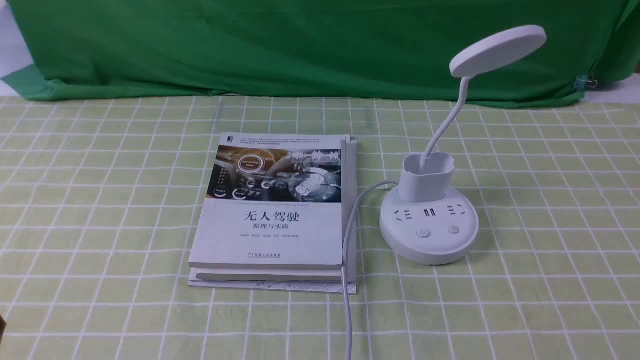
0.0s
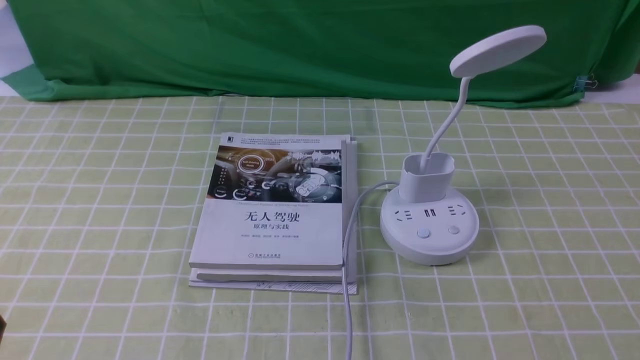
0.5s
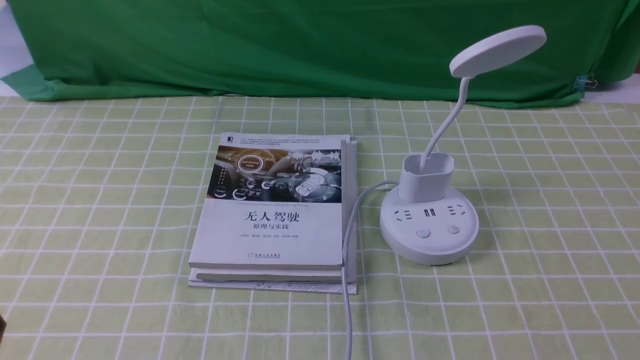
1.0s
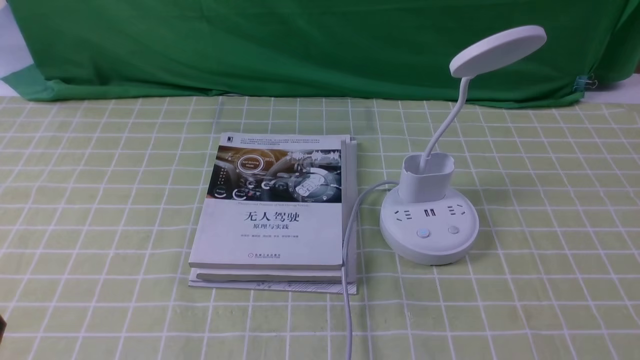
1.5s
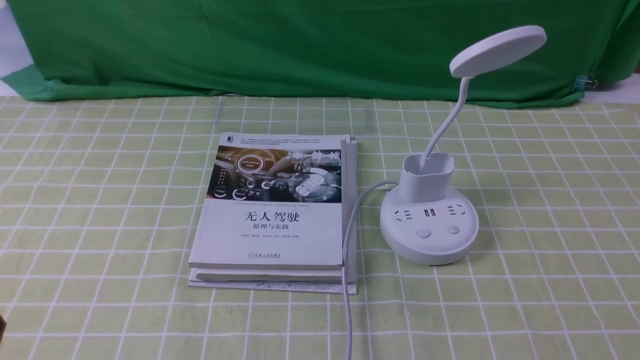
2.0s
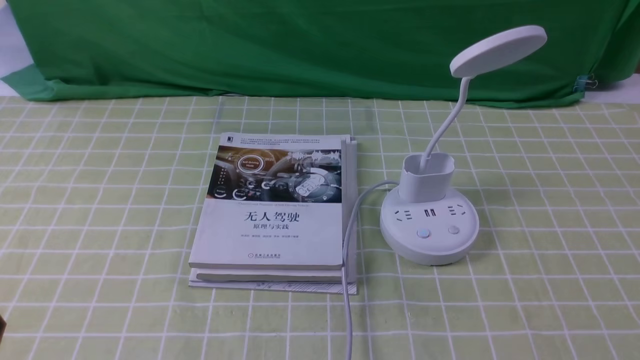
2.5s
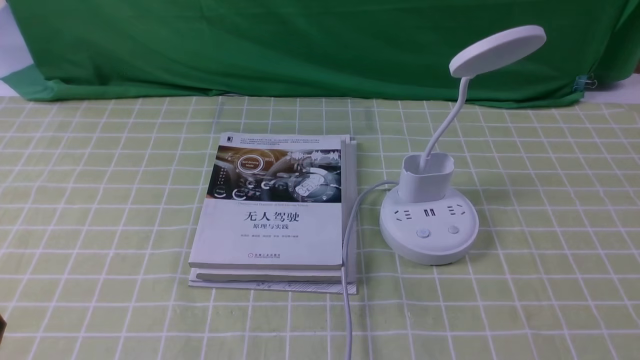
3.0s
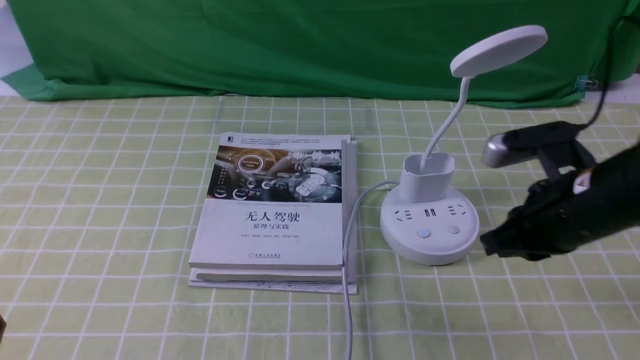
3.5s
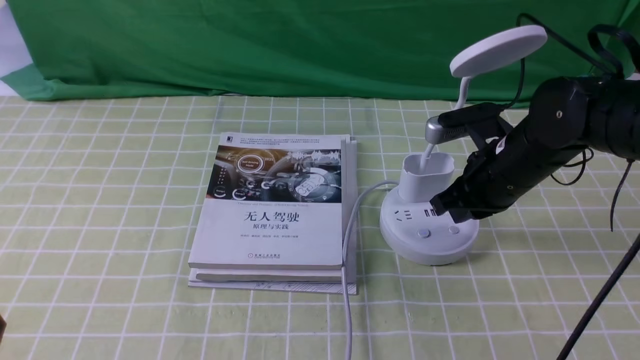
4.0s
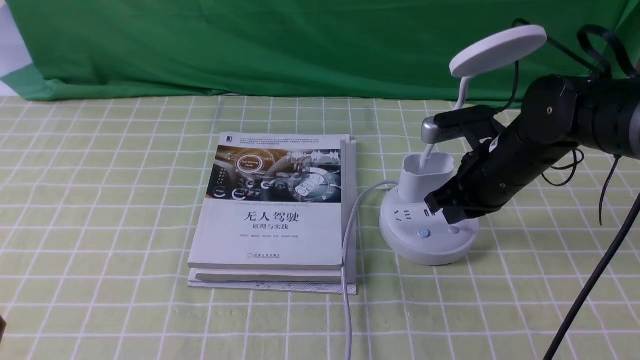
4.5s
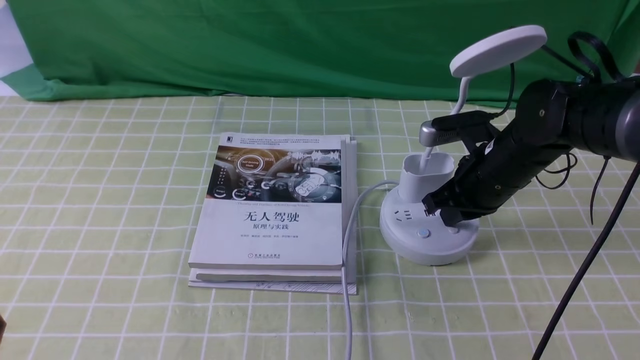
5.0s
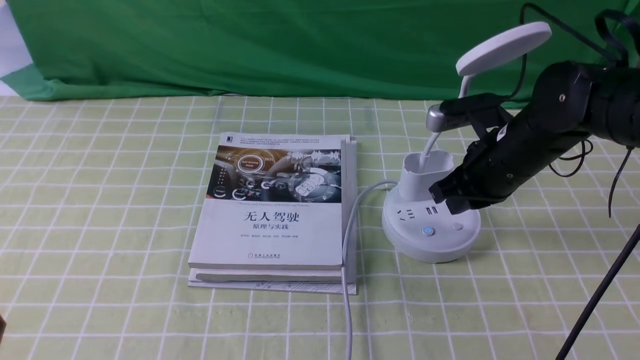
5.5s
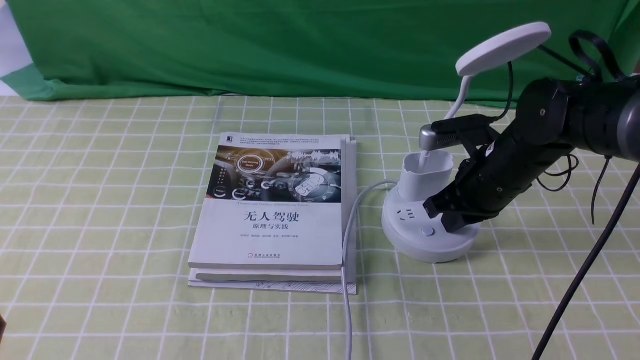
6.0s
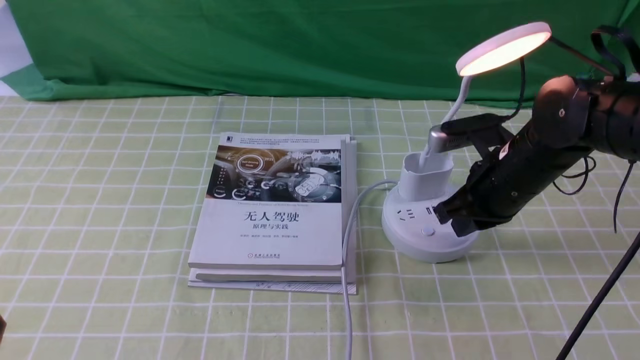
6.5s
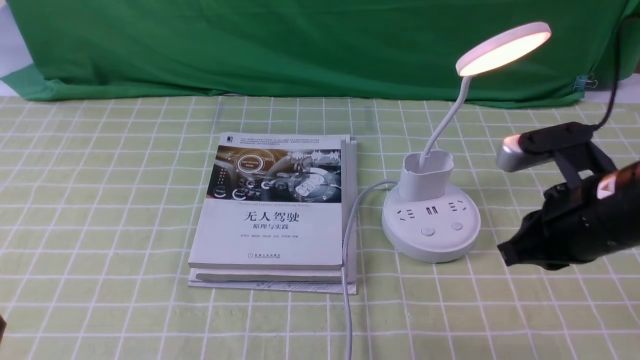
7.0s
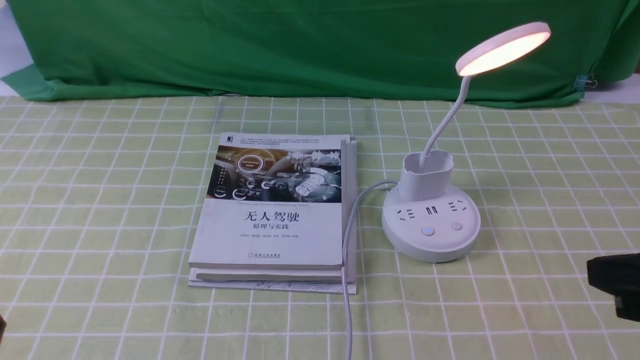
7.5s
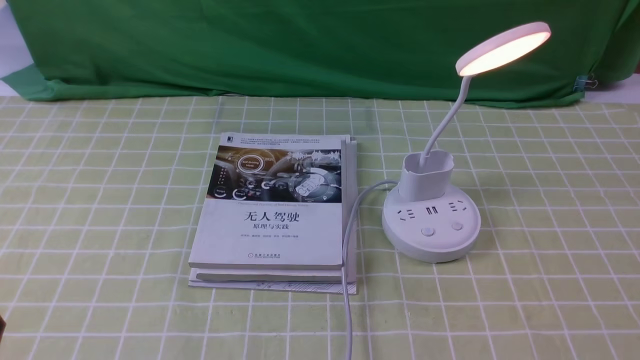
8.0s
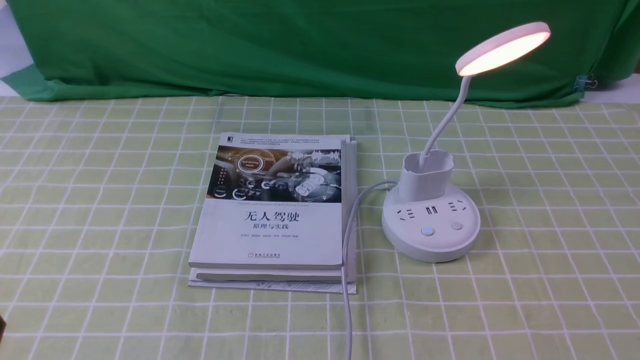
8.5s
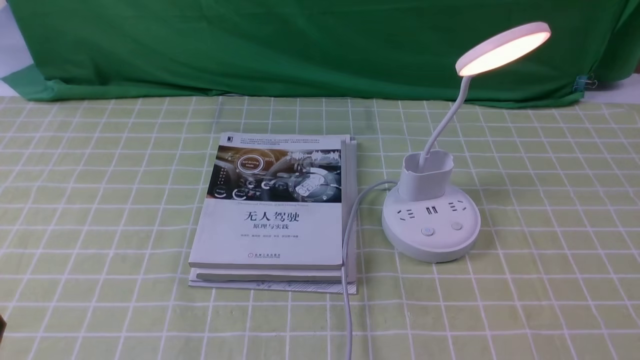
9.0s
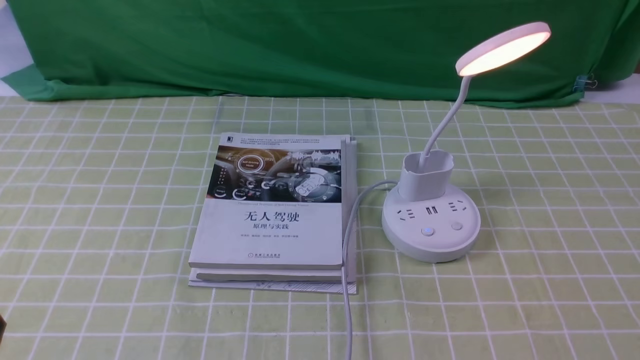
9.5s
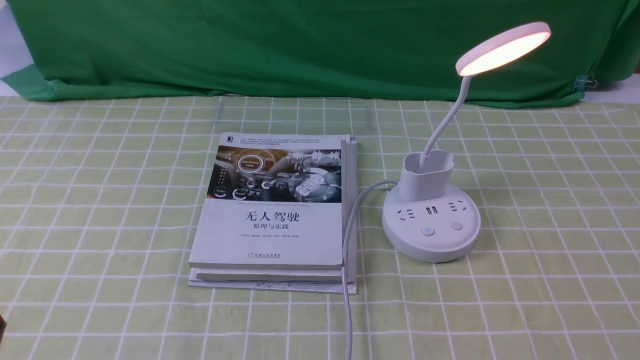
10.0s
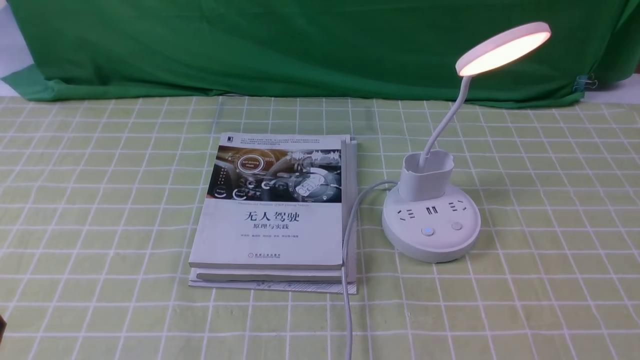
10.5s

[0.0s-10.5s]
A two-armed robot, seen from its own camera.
Step, 0.0s to 6.0s: use the right arm to press the button switch on the lamp holder.
2.0s to 4.0s: The right gripper heads forward and to the left, covering approximately 35 cm, and closes.
4.0s to 6.5s: The grippers move only a little.
6.5s to 8.5s: The right gripper is displaced backward and to the right by roughly 30 cm.

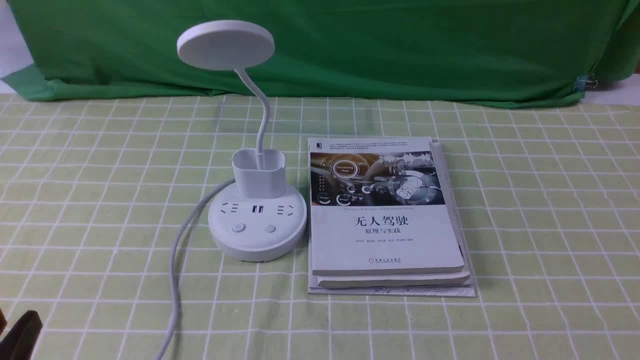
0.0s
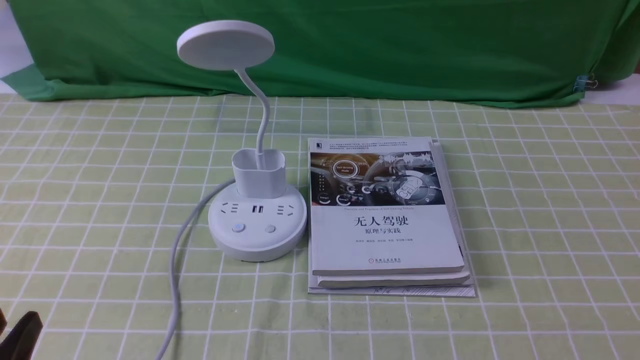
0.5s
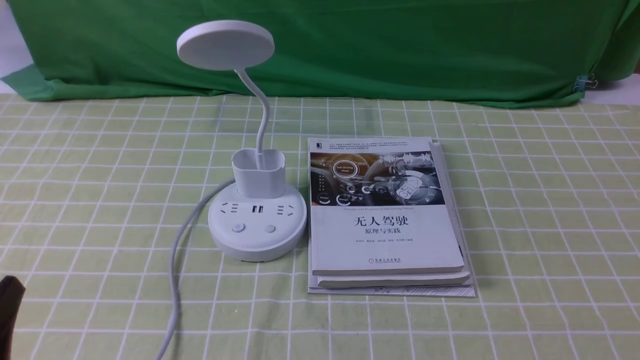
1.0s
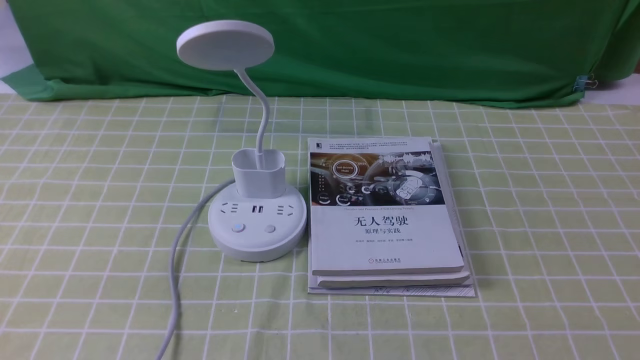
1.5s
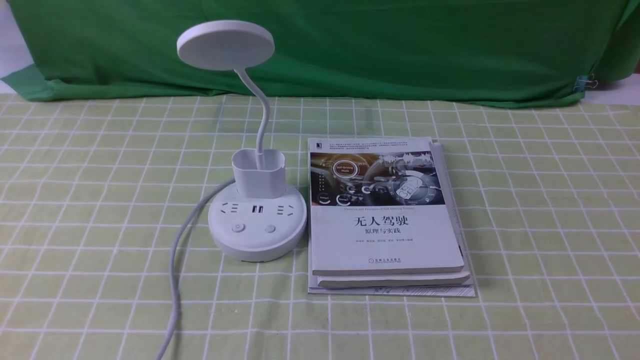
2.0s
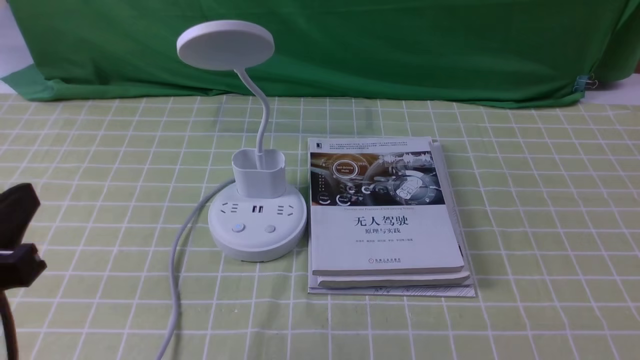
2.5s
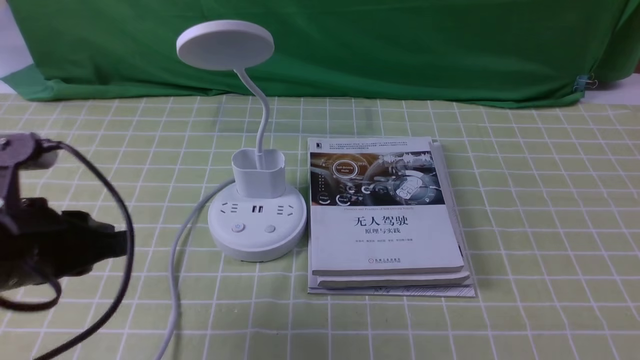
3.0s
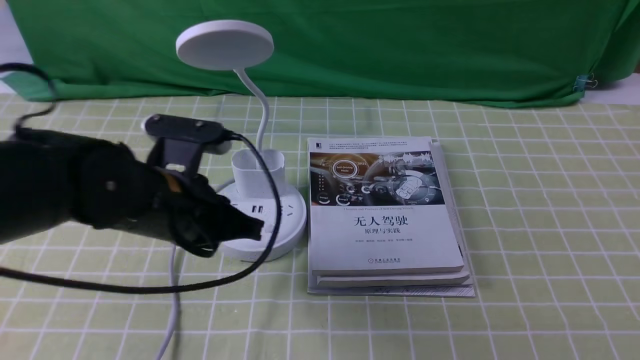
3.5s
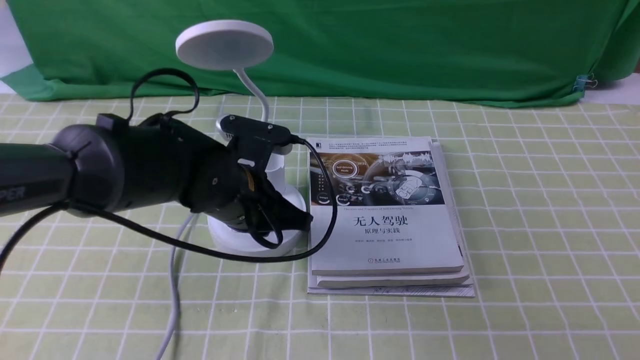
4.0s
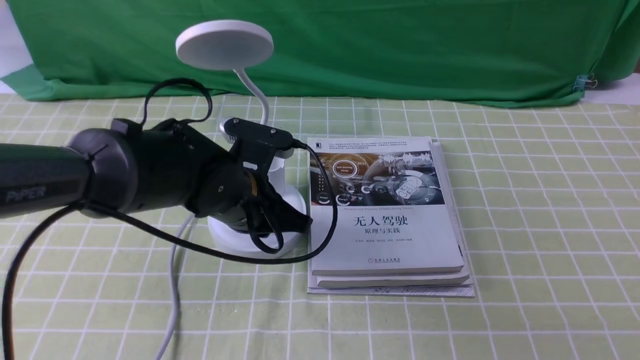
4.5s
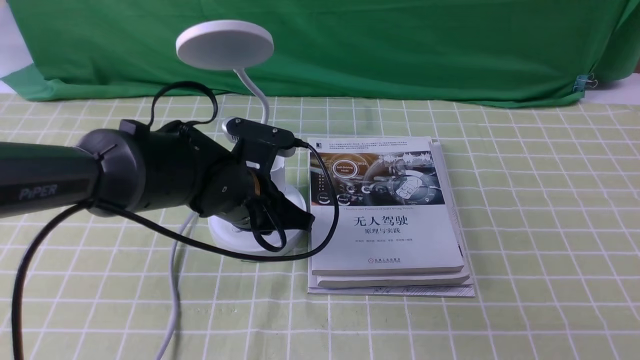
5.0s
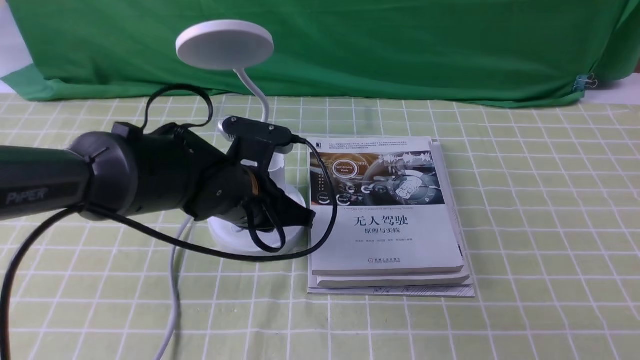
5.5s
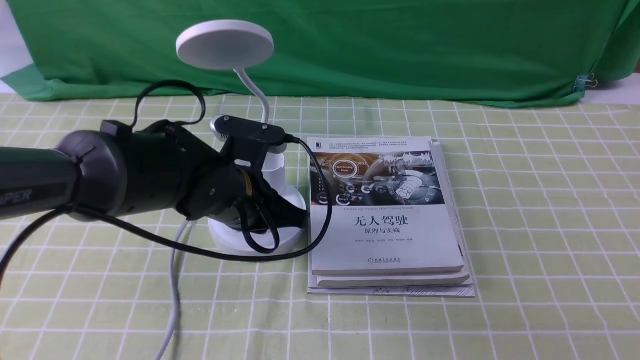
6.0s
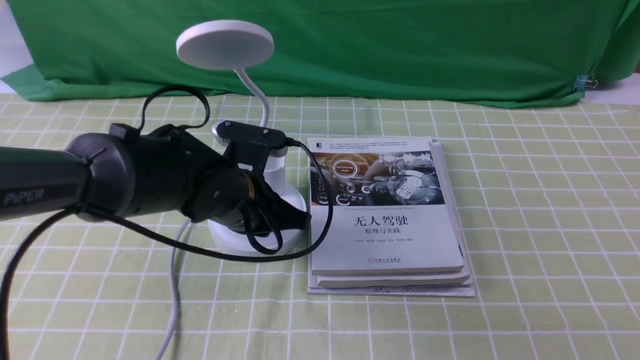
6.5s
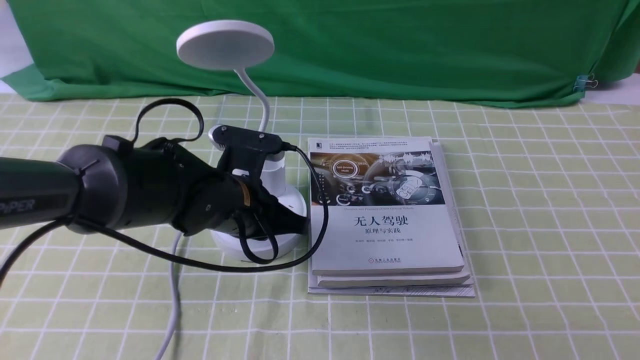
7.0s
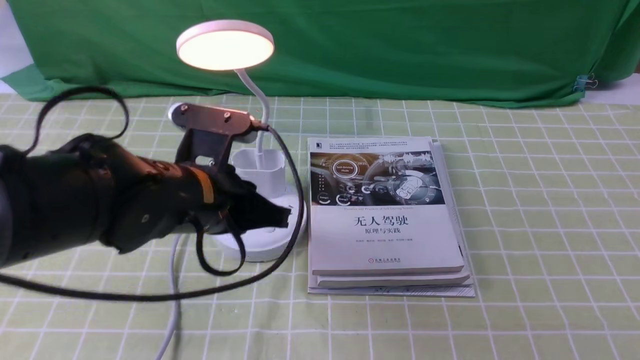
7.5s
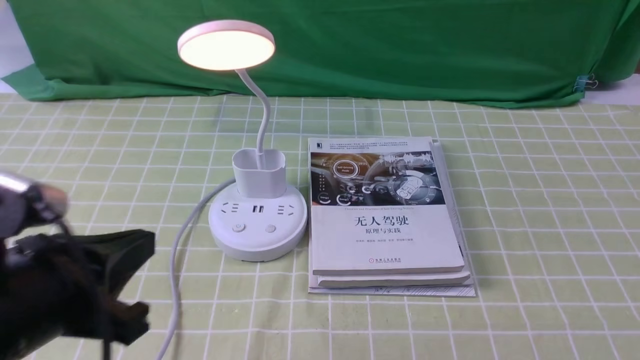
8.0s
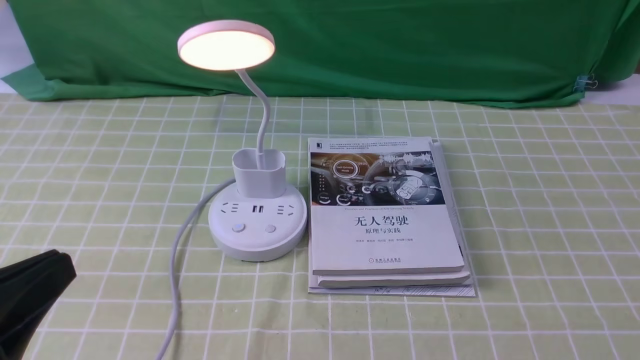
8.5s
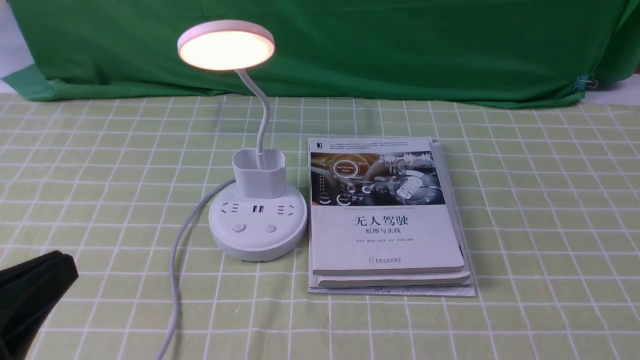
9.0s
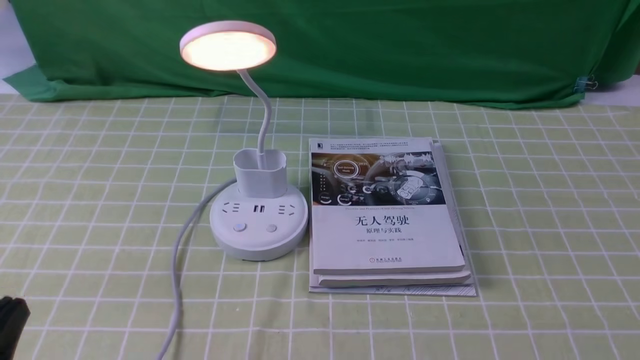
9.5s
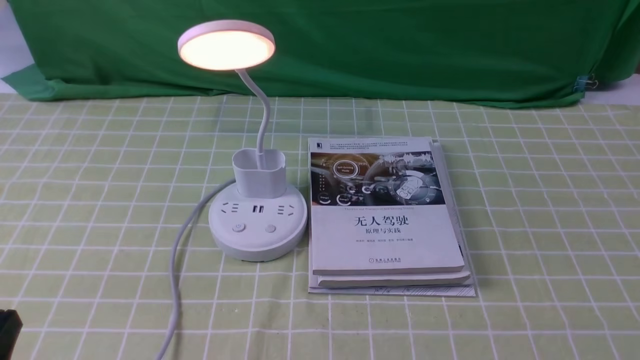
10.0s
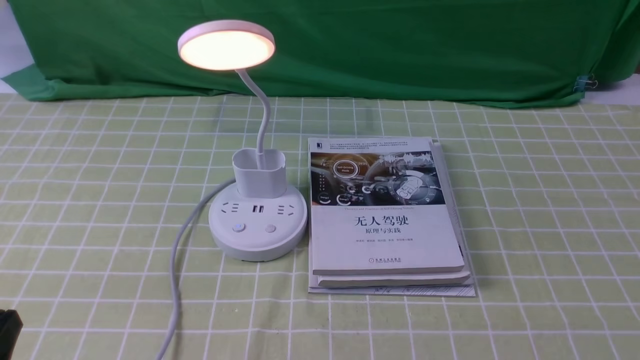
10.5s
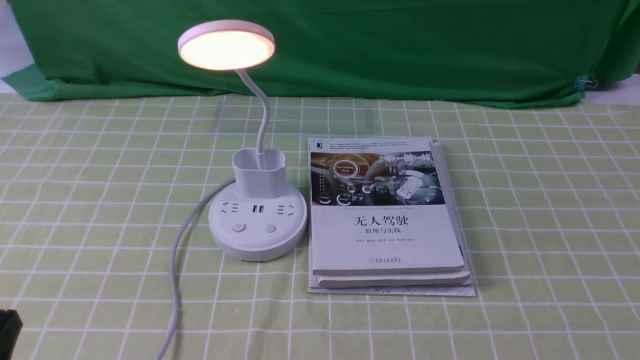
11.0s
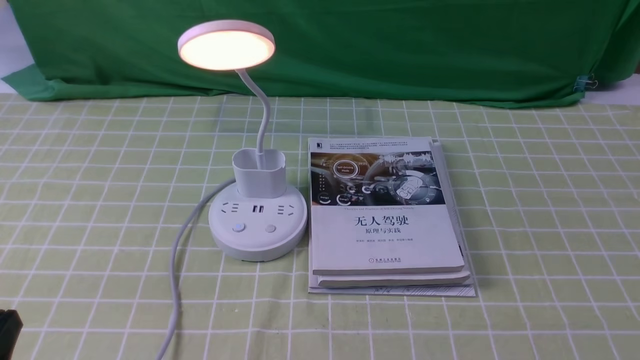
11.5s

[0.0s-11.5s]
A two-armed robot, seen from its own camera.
Step, 0.0s to 7.0s: use the left arm to press the button switch on the lamp holder.
2.0s to 4.0s: The left gripper is displaced forward and to the right by approximately 30 cm, and closes up.
4.0s to 7.5s: The grippers move only a little.
7.5s to 9.5s: The left gripper heads backward and to the left, covering roughly 25 cm.
